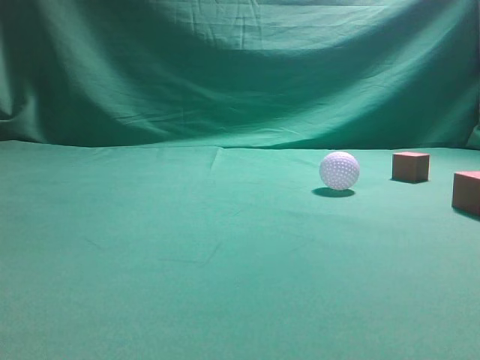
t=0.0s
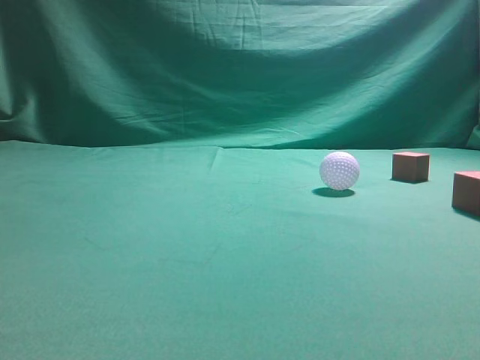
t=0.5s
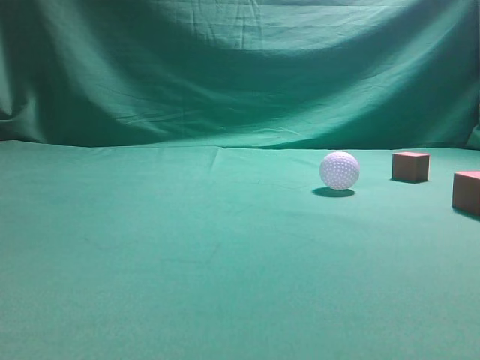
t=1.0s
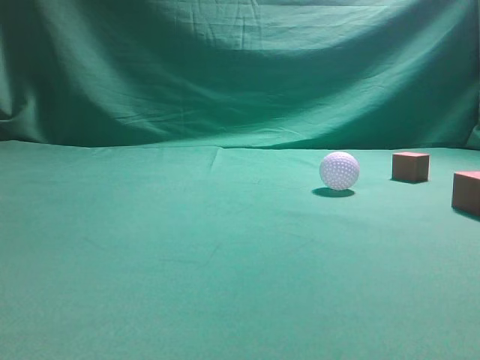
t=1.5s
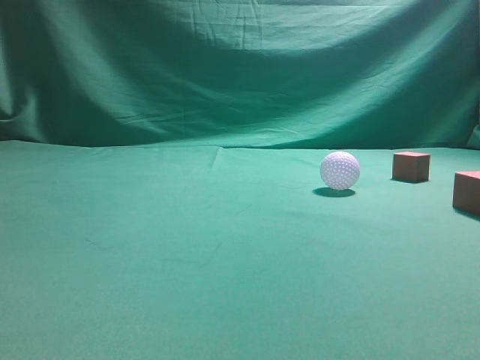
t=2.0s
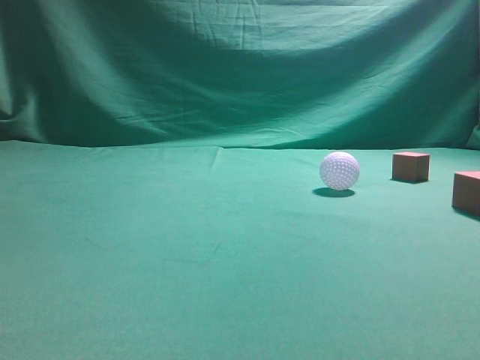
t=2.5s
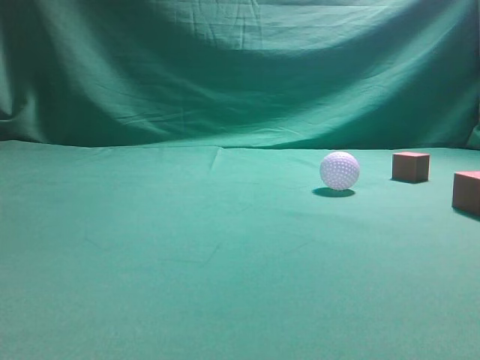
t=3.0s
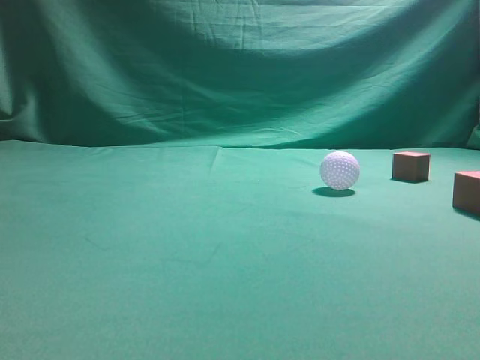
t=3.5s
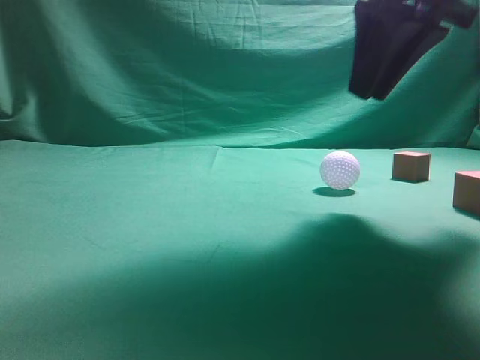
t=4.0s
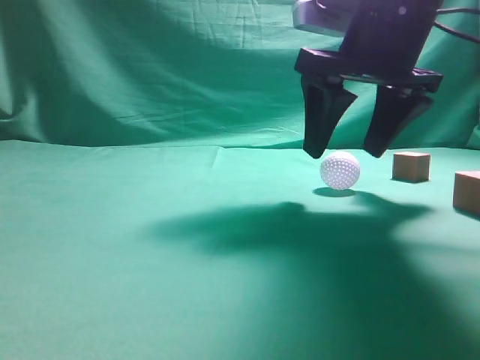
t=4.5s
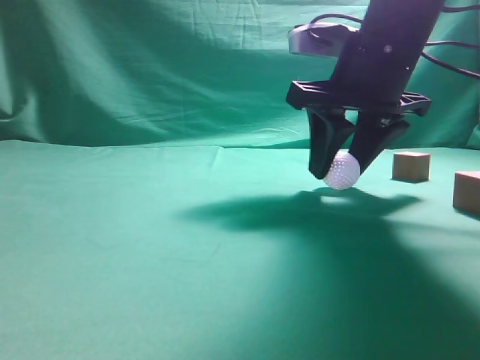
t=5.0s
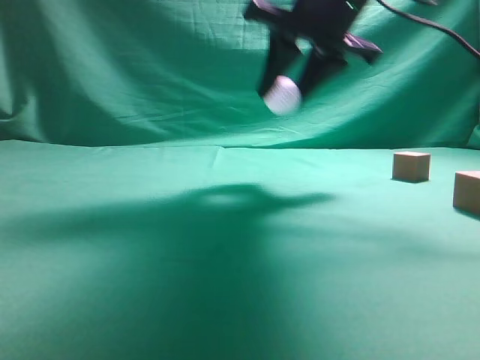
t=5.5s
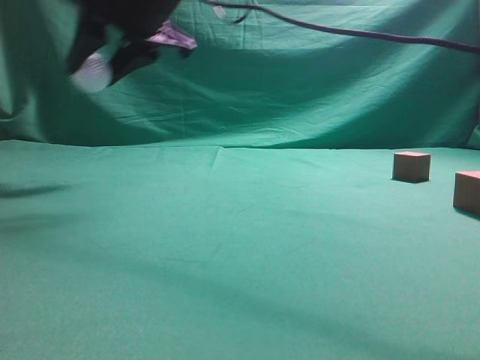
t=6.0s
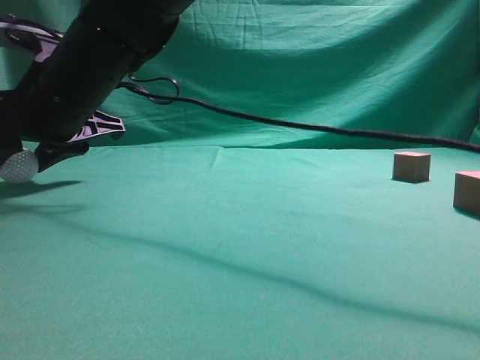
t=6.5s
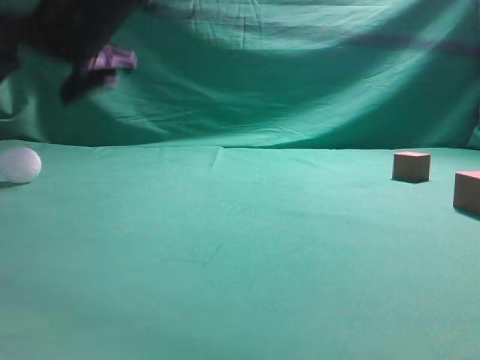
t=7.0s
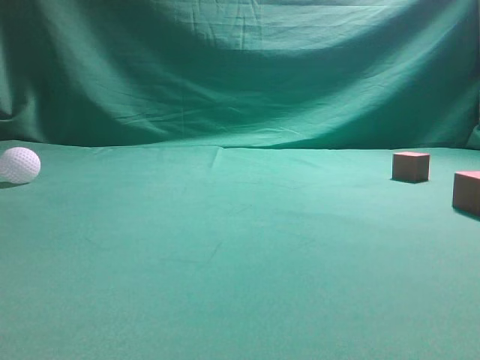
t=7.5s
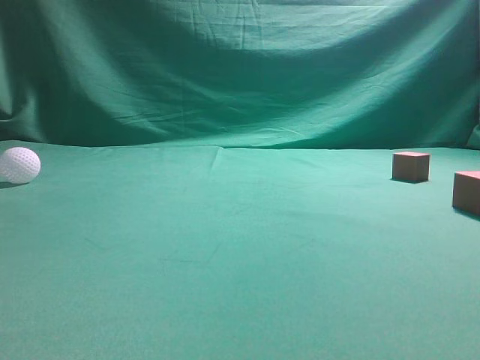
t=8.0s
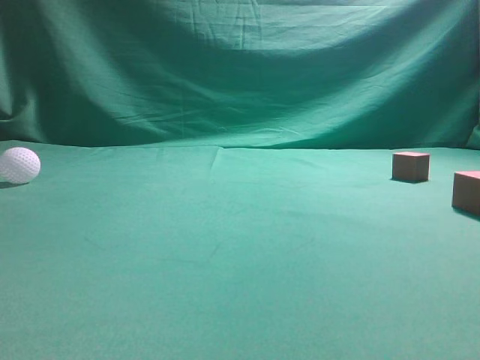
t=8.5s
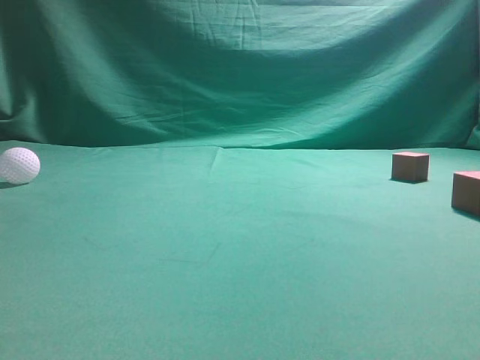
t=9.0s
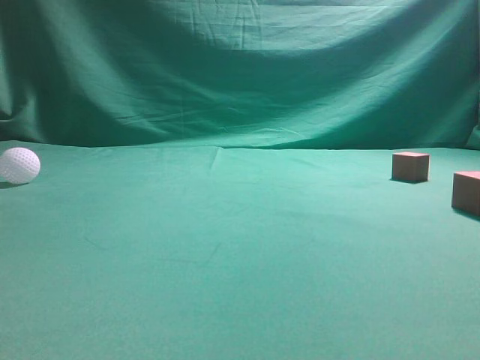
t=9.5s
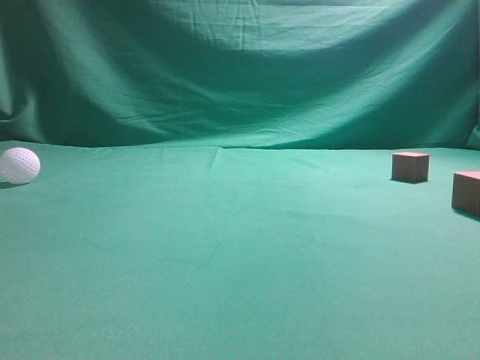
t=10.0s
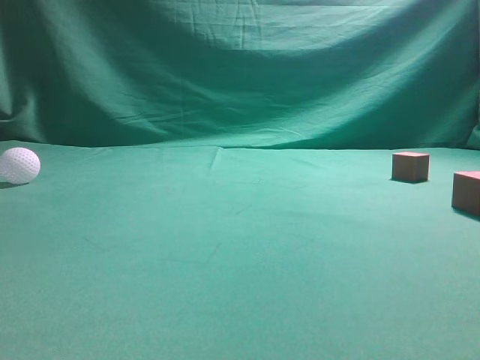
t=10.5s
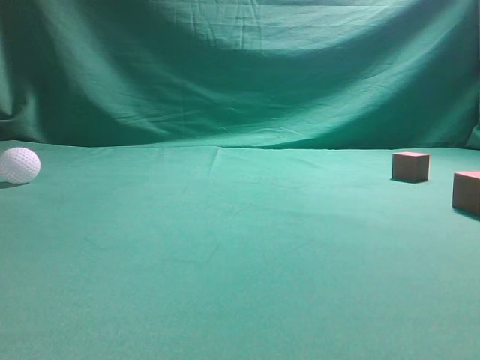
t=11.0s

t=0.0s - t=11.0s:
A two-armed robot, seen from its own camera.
Step, t=0.0s - t=5.0s: Grasp the spherical object on the right side.
t=3.5s - t=5.5s: The right gripper goes approximately 20 cm forward and to the left, and opens its fingers.
t=5.5s - t=7.5s: The right gripper is displaced upward and backward by about 20 cm, and closes up.
